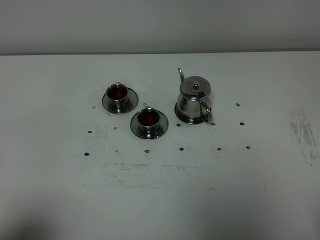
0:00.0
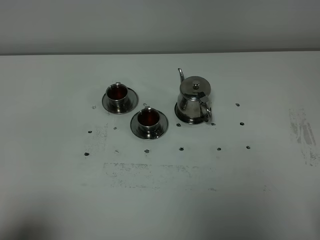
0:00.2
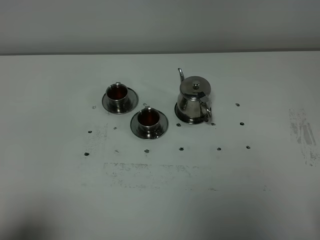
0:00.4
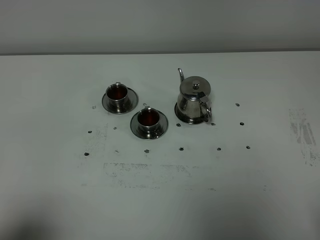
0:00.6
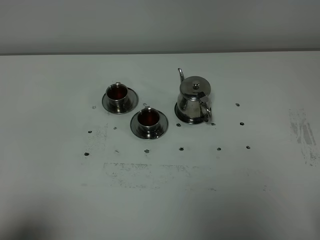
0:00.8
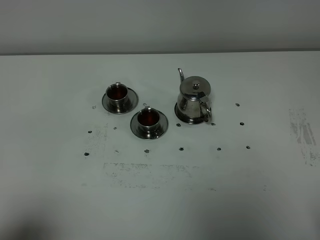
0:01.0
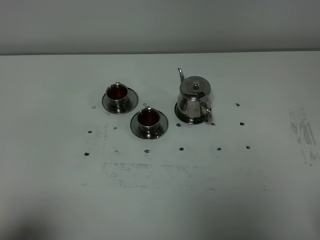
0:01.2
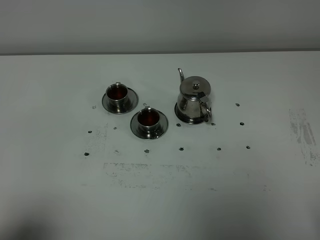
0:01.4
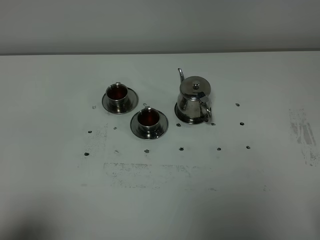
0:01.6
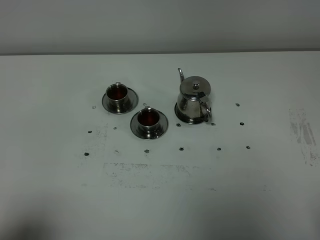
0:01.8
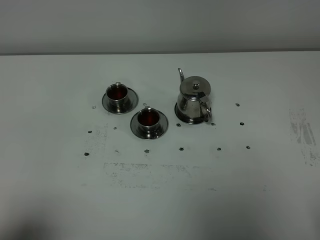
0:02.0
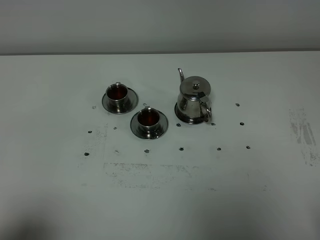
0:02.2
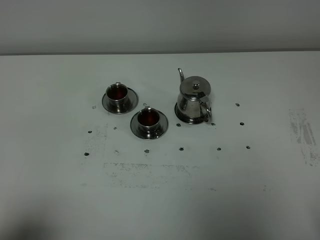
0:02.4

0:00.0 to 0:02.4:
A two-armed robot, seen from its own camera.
Task of the whole recording: grasp the stainless steel teapot and pour the tea into the two stainless steel teacups one by one, put the stainless steel teapot back in its original place.
0:00.0 to 0:02.4: Neither gripper changes place.

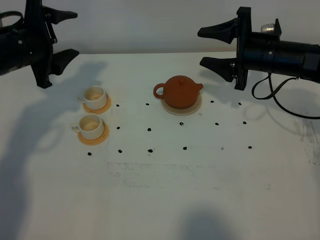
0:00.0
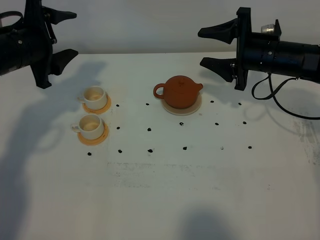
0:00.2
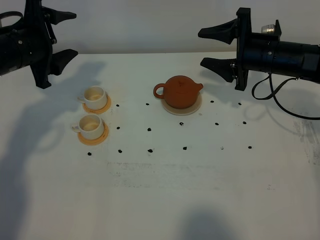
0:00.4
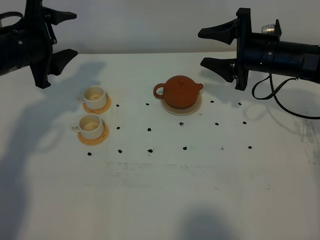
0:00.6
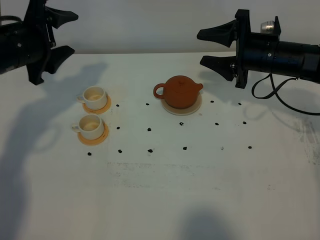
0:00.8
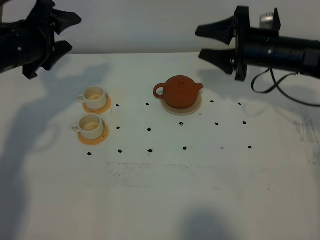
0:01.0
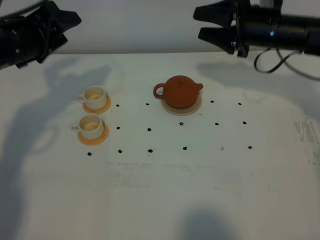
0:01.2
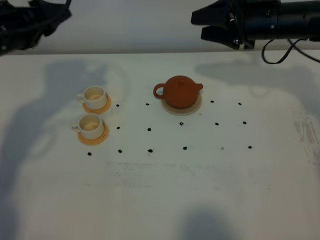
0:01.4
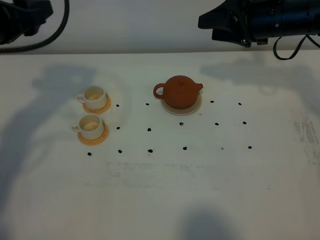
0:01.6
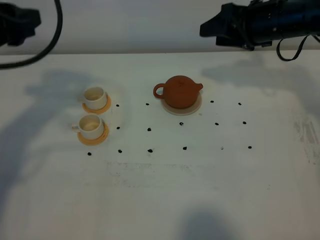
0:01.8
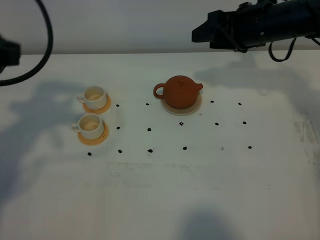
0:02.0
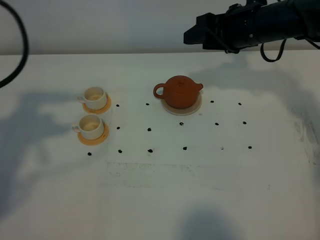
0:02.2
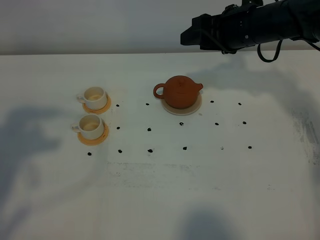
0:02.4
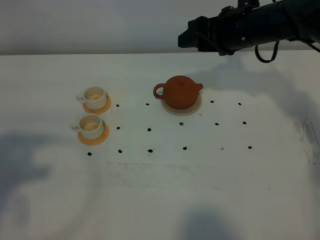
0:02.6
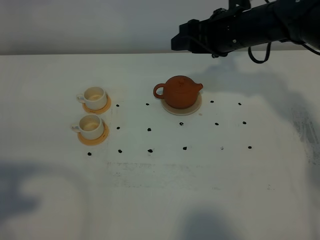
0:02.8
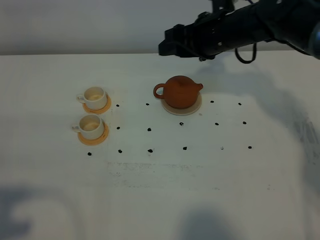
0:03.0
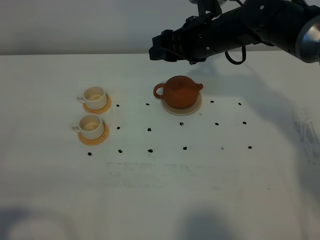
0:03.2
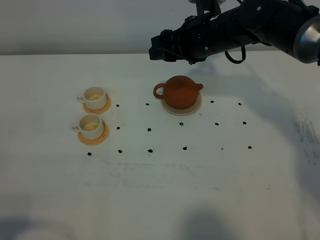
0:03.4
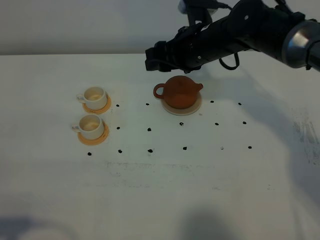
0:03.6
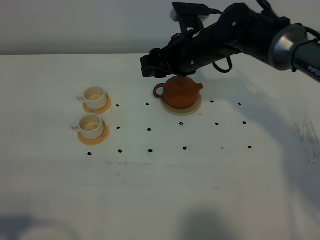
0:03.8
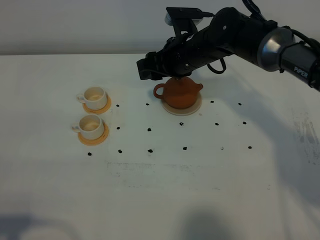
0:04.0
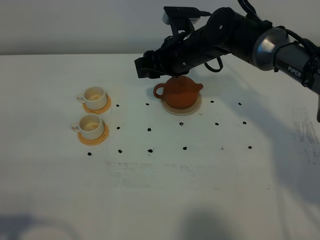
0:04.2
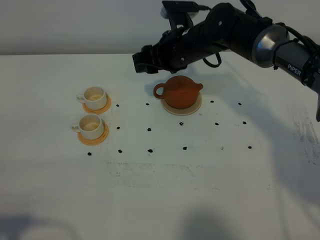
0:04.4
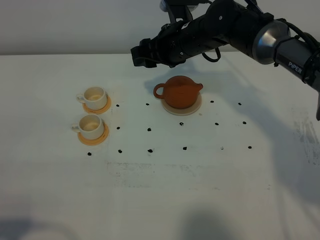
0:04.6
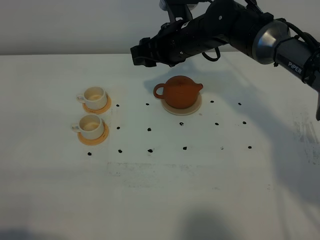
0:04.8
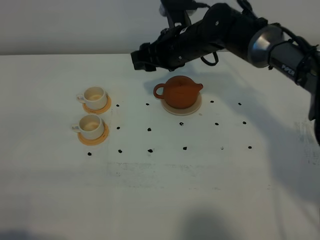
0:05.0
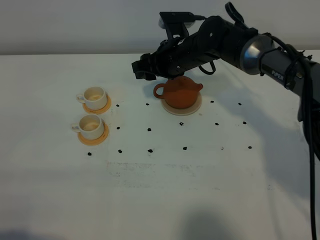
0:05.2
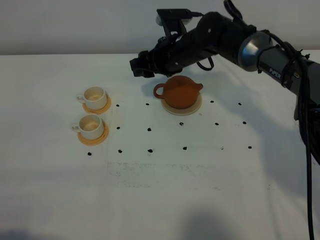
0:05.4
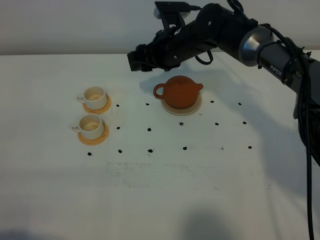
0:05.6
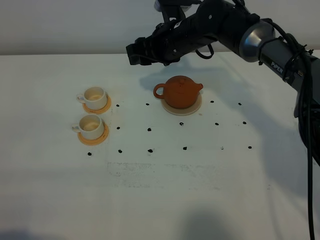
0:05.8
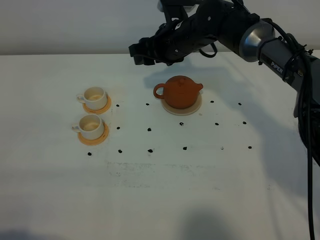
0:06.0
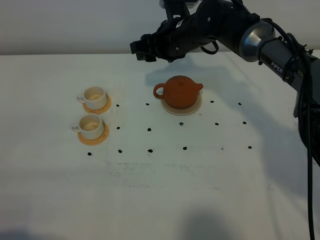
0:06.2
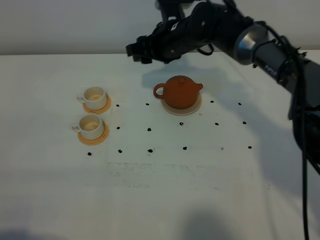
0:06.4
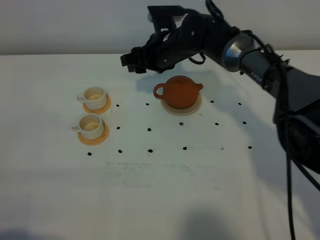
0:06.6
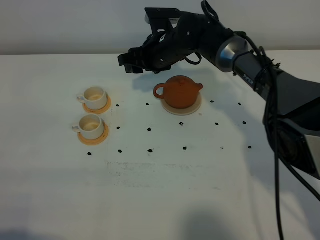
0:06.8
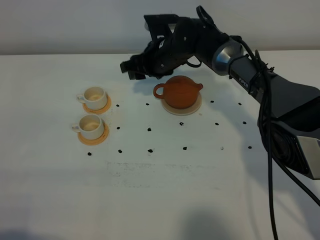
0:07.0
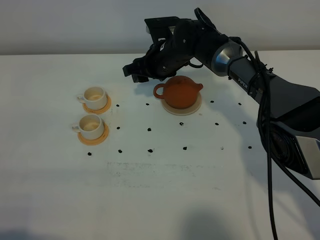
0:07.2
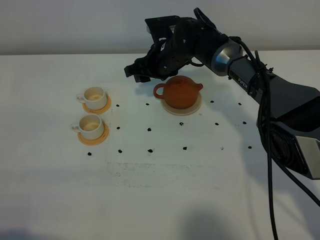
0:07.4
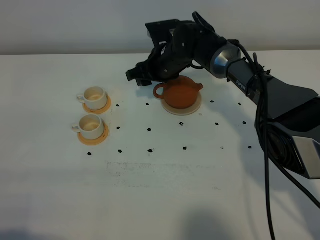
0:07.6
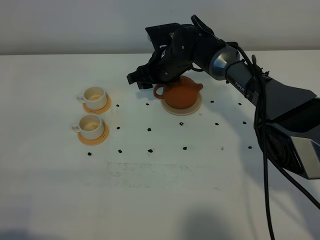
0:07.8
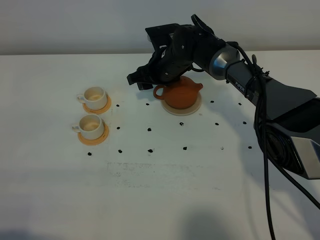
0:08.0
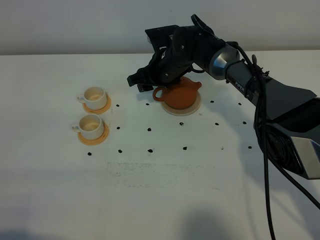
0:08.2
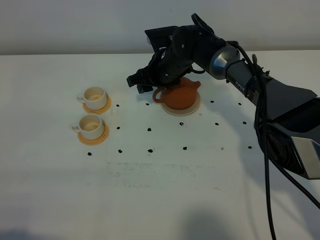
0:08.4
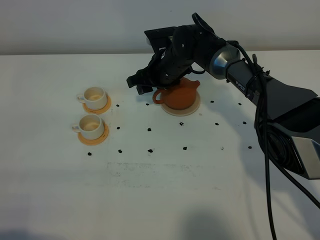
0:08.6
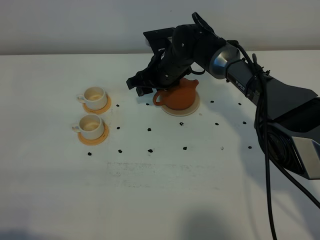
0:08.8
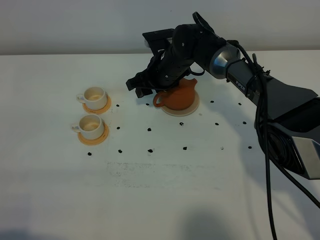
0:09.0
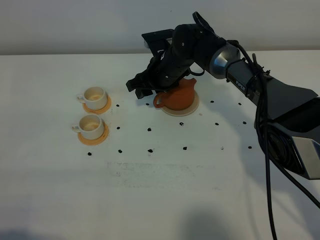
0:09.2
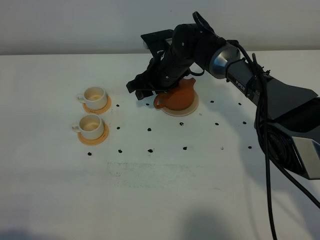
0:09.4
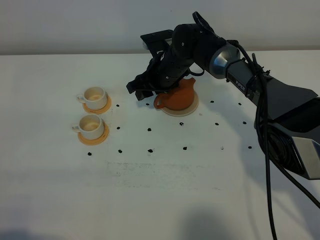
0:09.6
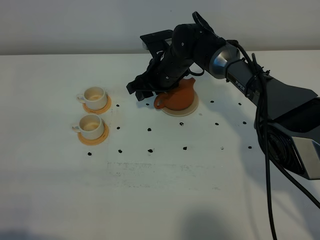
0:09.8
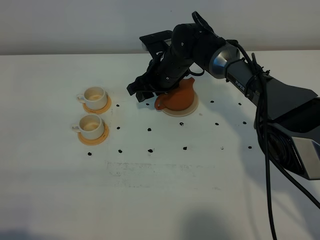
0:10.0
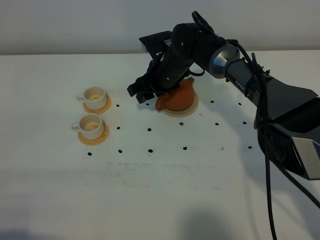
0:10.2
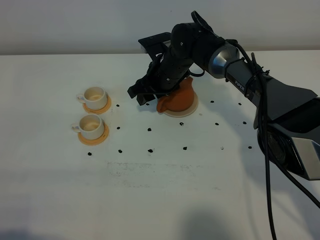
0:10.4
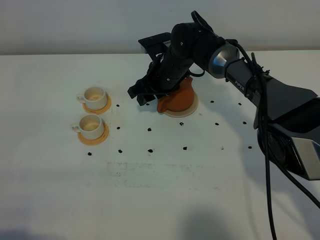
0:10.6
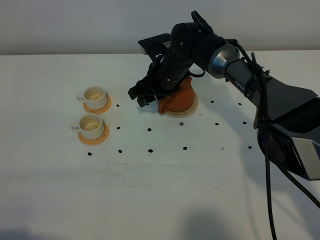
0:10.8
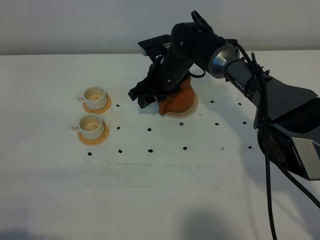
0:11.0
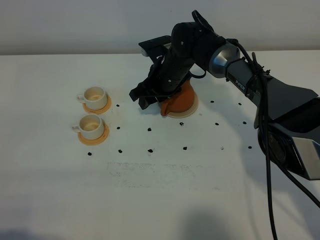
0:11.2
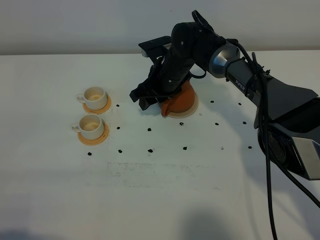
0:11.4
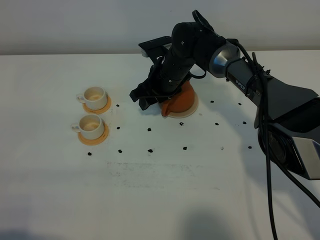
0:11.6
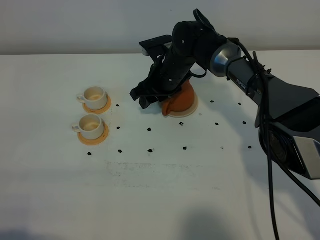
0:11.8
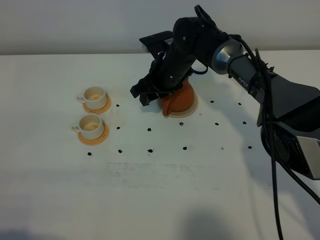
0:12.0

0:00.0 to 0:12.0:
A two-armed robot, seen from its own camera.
Task of the whole recording: grasp the brown teapot and pour the tea into the two white teacups one by one, put the brown teapot back in its original place.
0:00.0 to 0:01.6: Both grippers travel together upward, about 10 cm.
0:01.6 to 0:03.0: The right gripper travels to the left by roughly 10 cm; the left gripper travels backward by some 30 cm, and closes up.
0:03.0 to 0:04.4: The left gripper heads downward, covering about 10 cm. Meanwhile the right gripper is displaced to the left by roughly 5 cm.
0:04.4 to 0:06.0: The grippers stay close to where they were, moving slightly.
0:06.0 to 0:07.6: The right gripper is displaced downward by approximately 5 cm.
0:07.6 to 0:12.0: The grippers make only small movements.

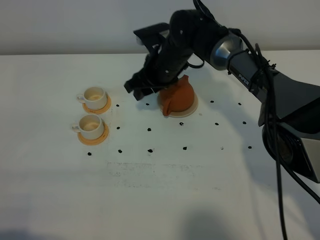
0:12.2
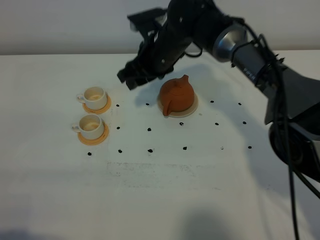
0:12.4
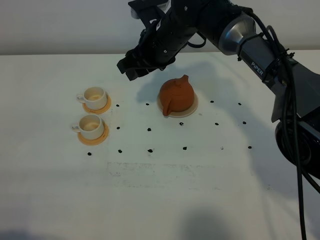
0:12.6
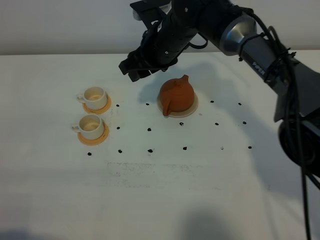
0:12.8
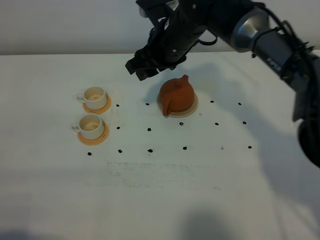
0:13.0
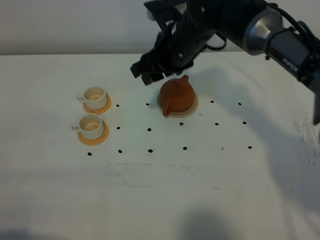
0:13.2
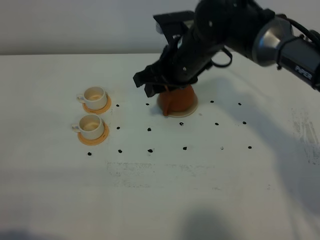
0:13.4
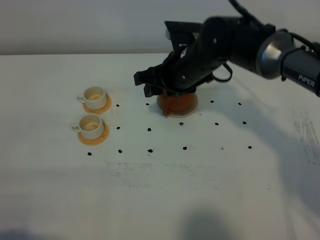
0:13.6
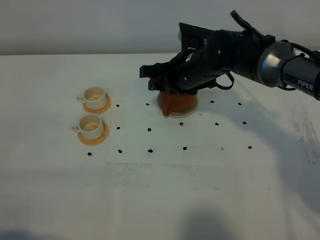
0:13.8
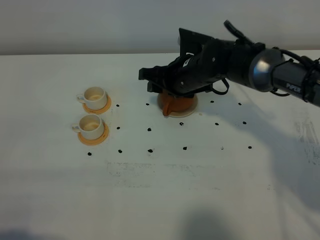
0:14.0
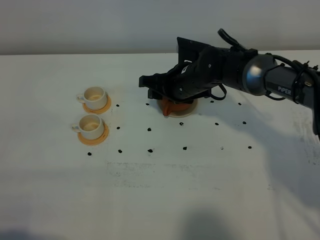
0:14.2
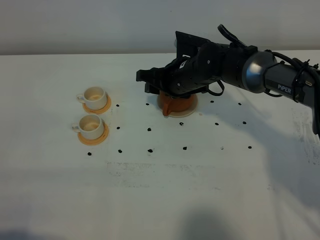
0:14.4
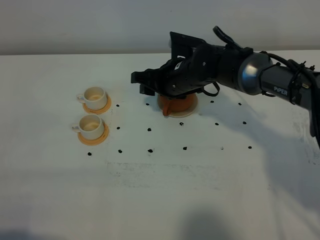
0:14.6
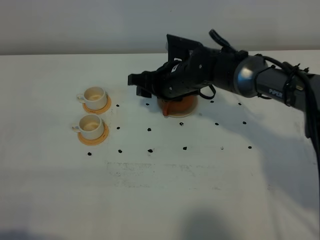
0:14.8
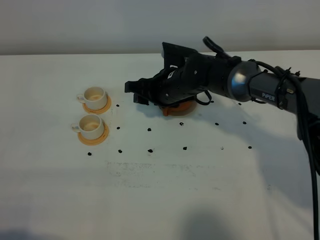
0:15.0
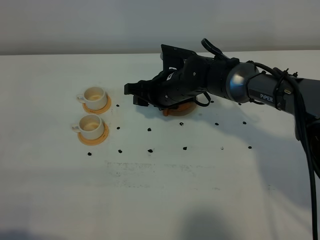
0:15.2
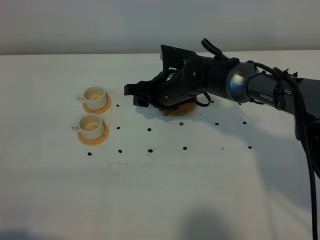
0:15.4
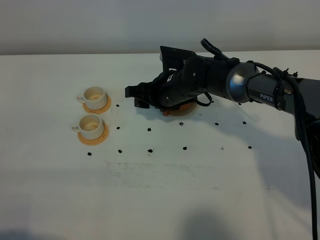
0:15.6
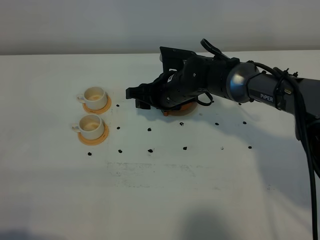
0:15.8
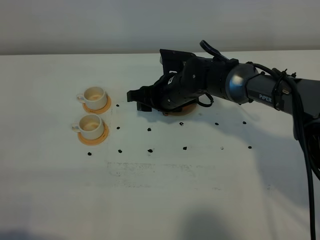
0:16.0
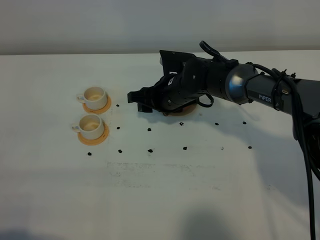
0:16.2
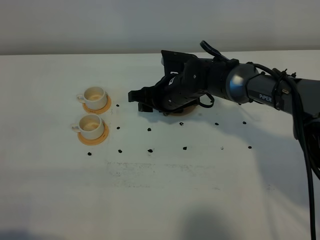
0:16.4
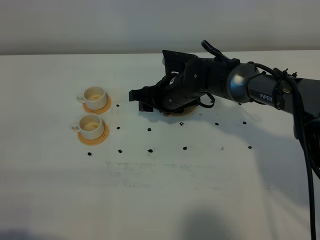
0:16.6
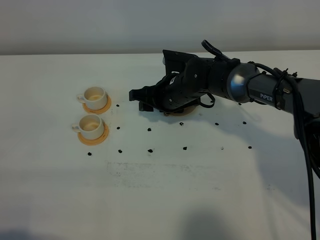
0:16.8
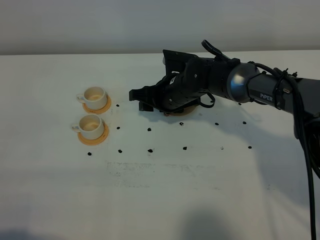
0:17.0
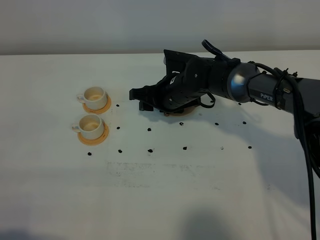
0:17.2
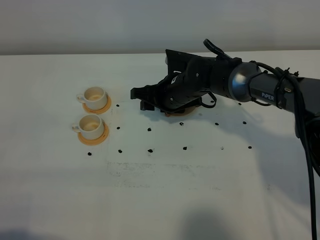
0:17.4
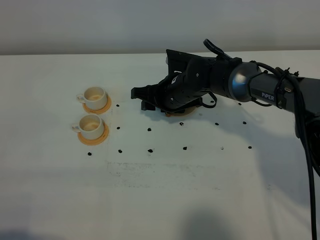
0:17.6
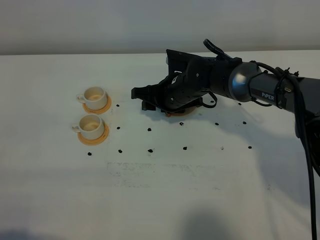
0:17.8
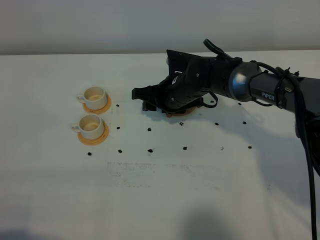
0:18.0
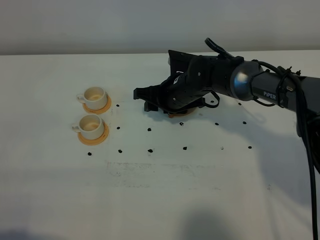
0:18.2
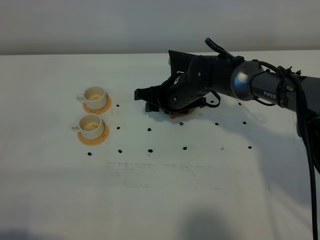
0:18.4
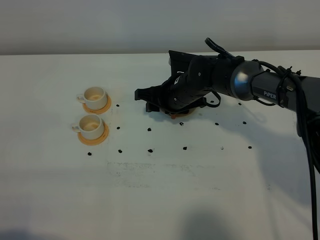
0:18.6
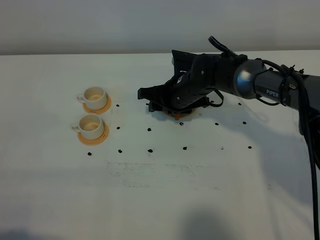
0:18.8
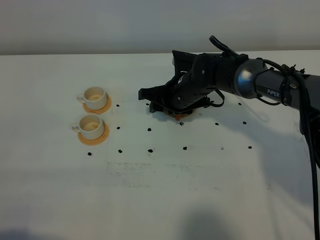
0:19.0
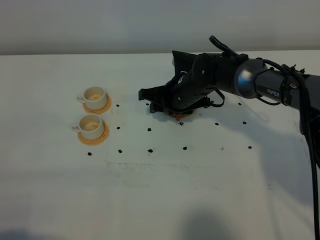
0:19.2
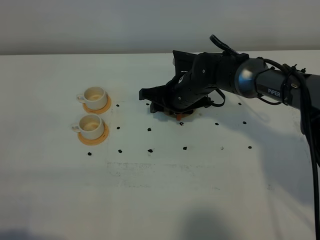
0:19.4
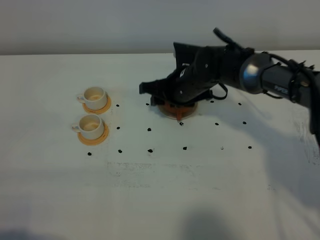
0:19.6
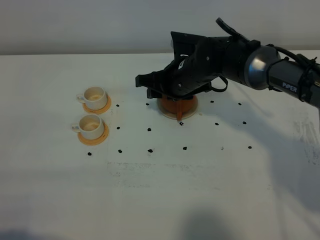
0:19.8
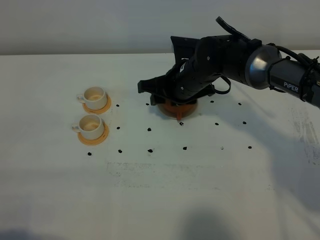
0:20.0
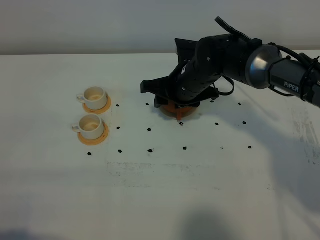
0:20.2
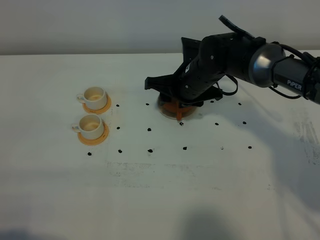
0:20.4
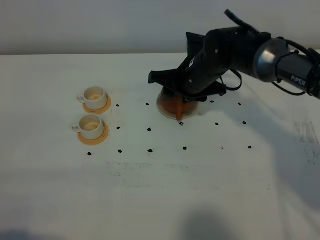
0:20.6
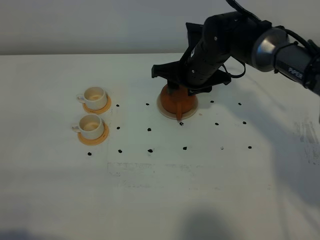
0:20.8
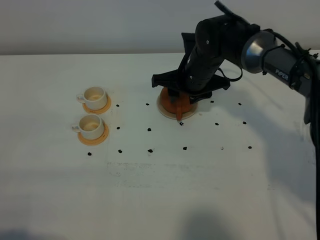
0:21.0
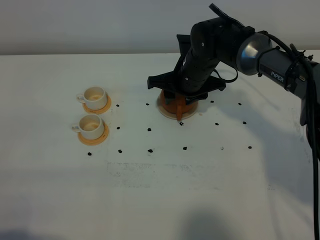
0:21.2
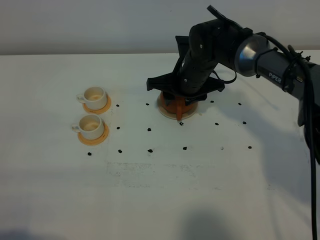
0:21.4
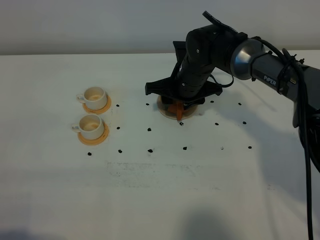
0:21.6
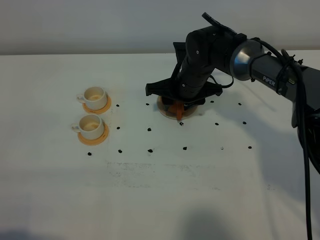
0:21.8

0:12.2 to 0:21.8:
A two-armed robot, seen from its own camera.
Task of the whole recording: grasp the brown teapot and pour the tea into the two white teacups one by one, put the brown teapot back in its original place.
0:12.2 to 0:13.8: The right gripper travels to the right by roughly 5 cm.
0:13.8 to 0:15.4: The right gripper moves downward, roughly 5 cm.
0:15.4 to 0:17.0: Neither gripper changes place.
0:17.0 to 0:18.6: Both grippers stay put.
0:18.6 to 0:20.2: The grippers move only a little.
0:20.2 to 0:21.8: The grippers move only a little.
